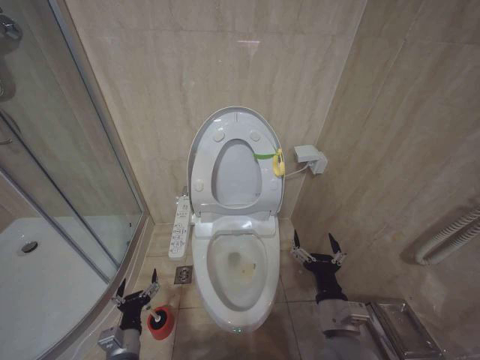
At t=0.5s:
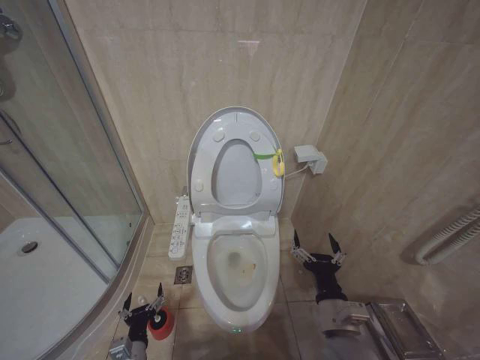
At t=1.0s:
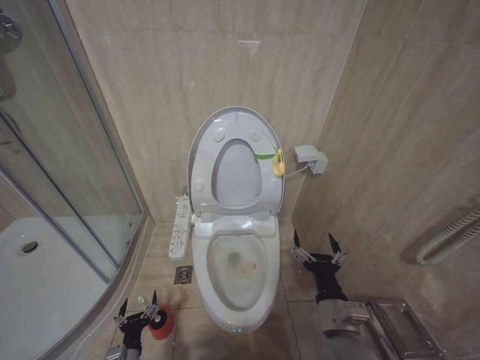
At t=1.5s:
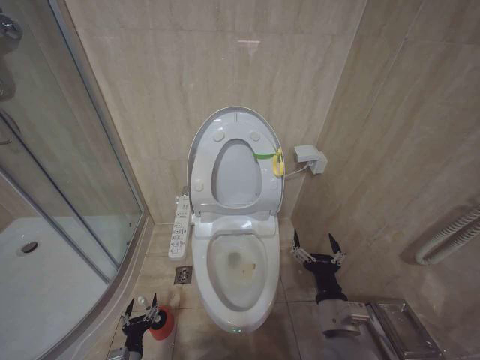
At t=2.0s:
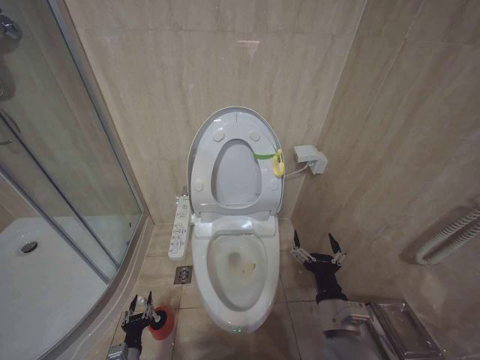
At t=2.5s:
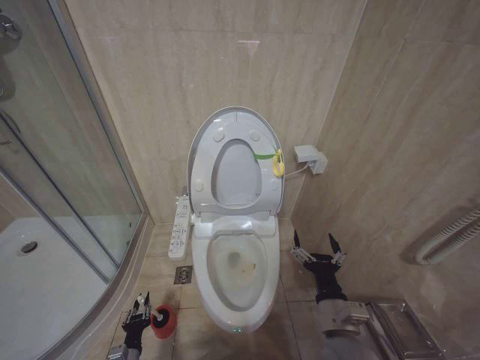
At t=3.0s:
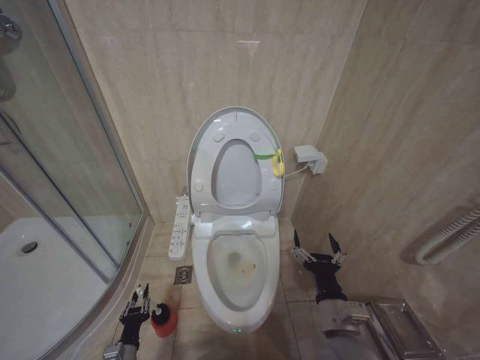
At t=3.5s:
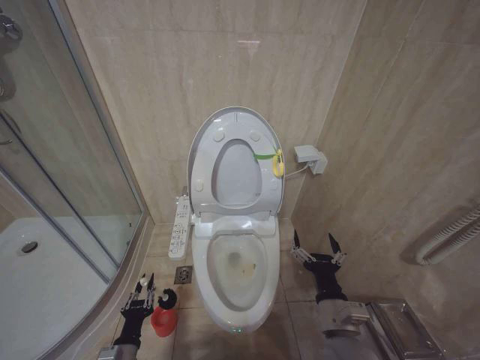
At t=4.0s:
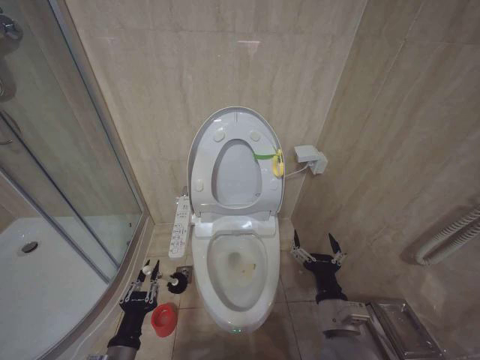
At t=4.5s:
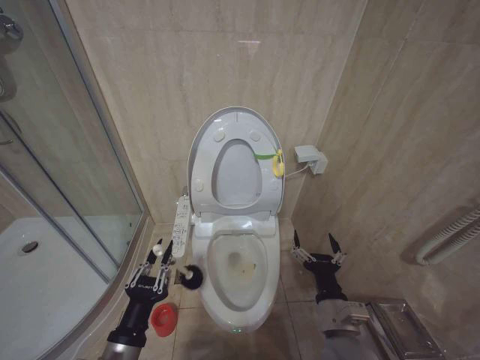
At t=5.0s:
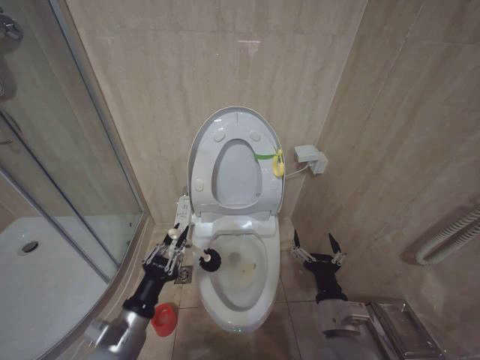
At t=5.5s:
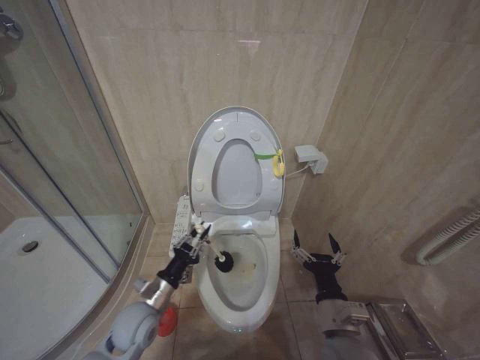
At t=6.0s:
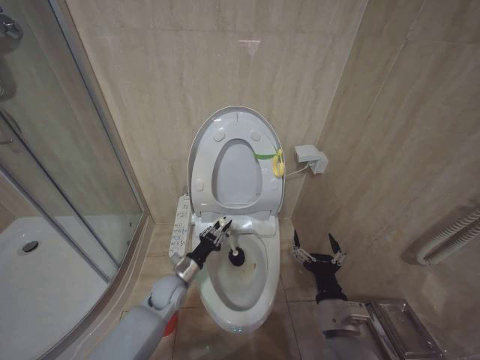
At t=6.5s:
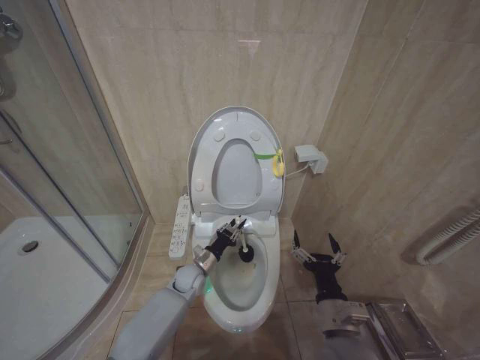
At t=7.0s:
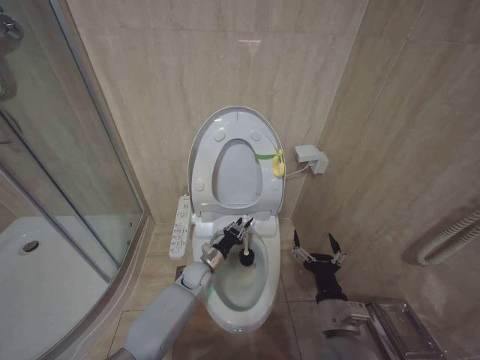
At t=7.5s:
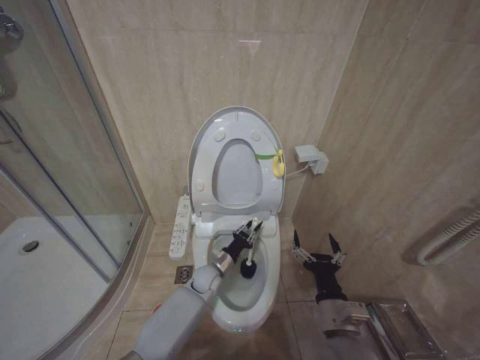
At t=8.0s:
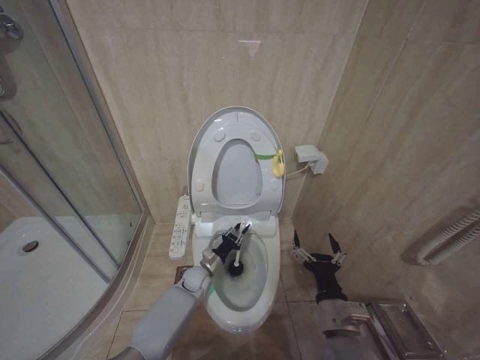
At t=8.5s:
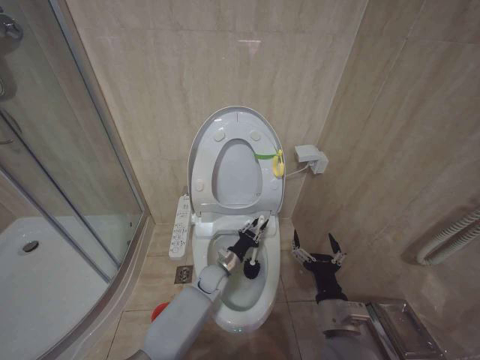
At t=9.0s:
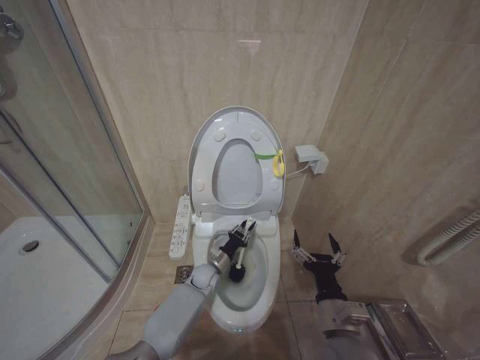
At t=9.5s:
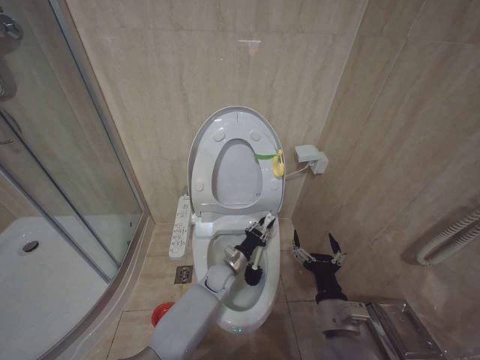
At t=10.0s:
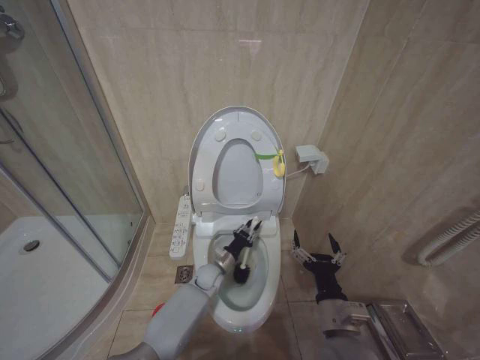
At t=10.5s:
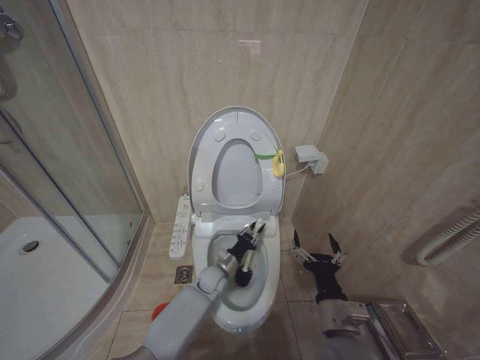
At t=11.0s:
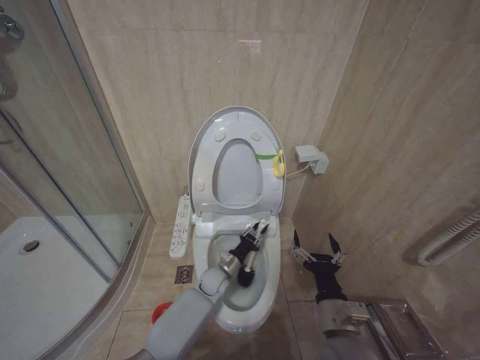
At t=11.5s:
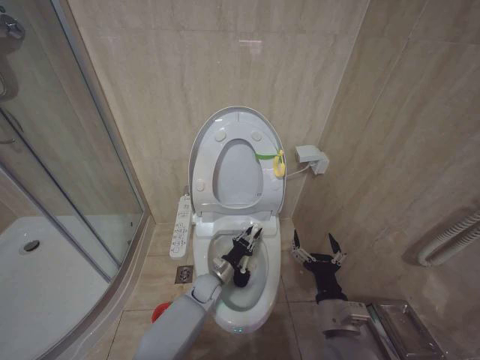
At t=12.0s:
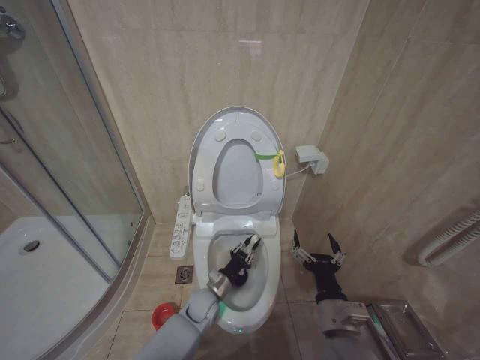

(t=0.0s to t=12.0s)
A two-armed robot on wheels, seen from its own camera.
Task of the whole recording: Open the toilet lid, clean the toilet bowl with a toilet brush, close the toilet lid, and flush.
t=0.0s - t=2.0s: The left gripper is displaced downward by some 15 cm, and closes its fingers.
t=2.0s - t=4.0s: The left gripper moves upward, approximately 20 cm.
t=4.0s - t=6.0s: The left gripper travels forward by approximately 20 cm.
t=6.0s - t=8.0s: The left gripper moves to the right, downward and forward, roughly 10 cm.
t=10.0s - t=12.0s: The left gripper goes roughly 5 cm backward.

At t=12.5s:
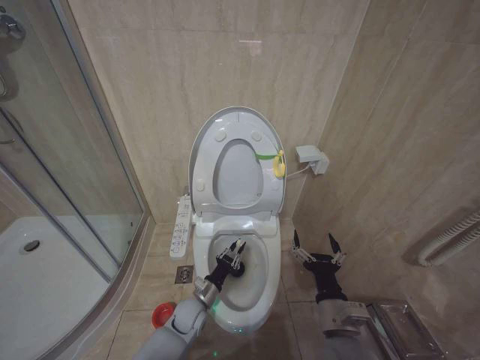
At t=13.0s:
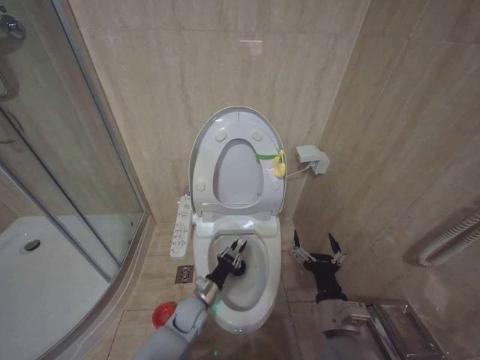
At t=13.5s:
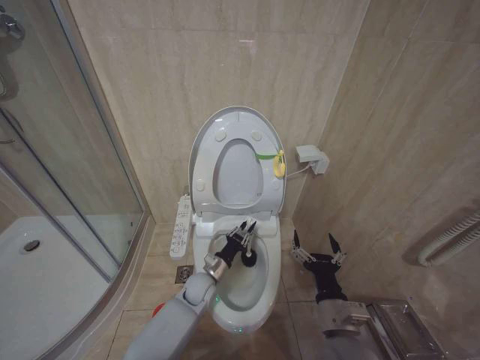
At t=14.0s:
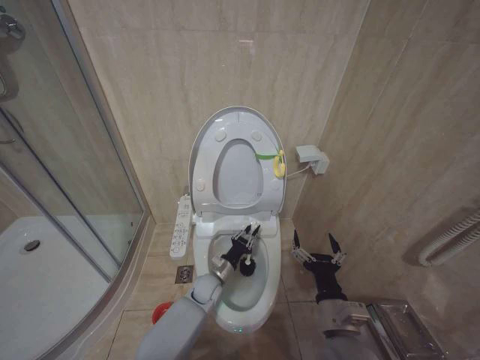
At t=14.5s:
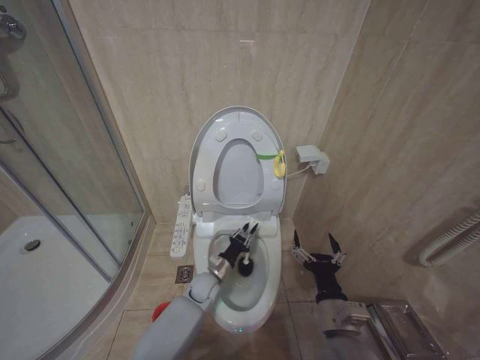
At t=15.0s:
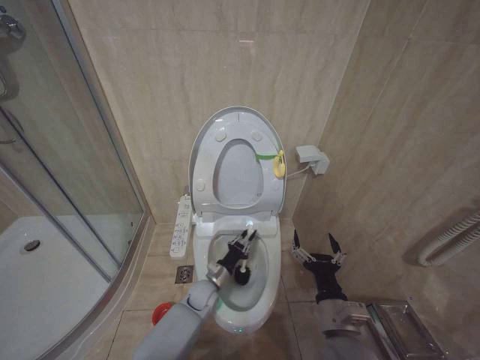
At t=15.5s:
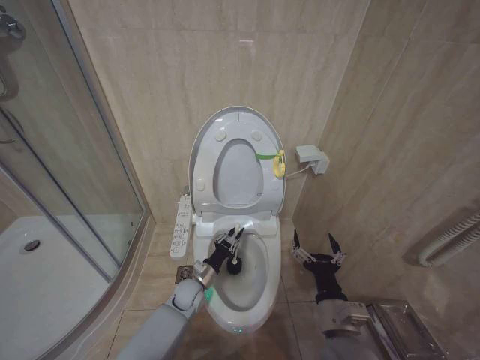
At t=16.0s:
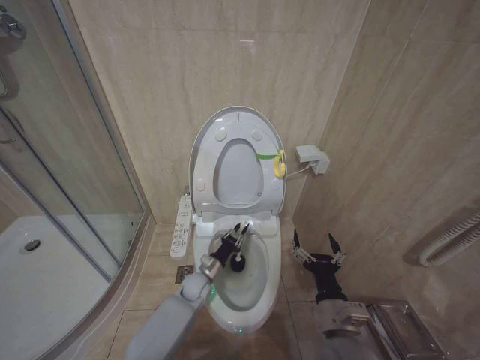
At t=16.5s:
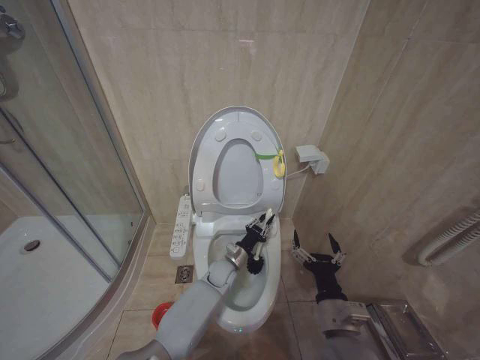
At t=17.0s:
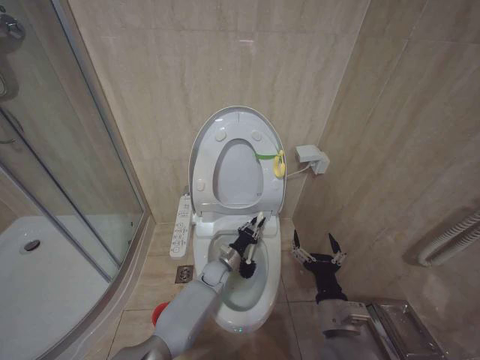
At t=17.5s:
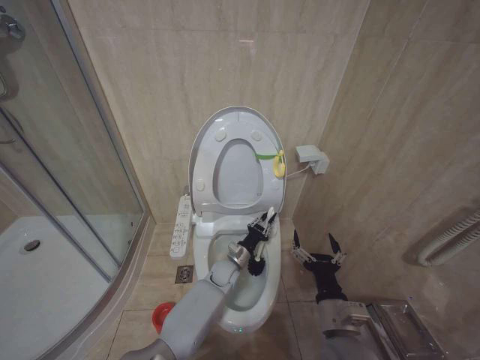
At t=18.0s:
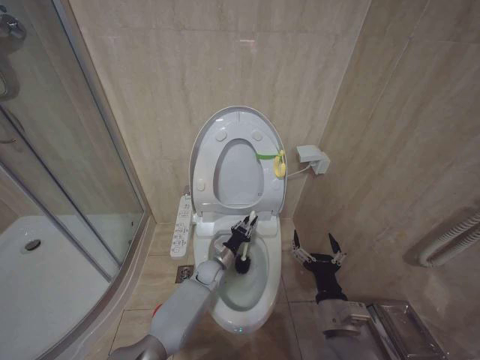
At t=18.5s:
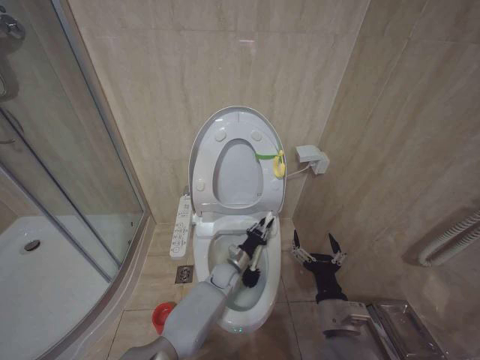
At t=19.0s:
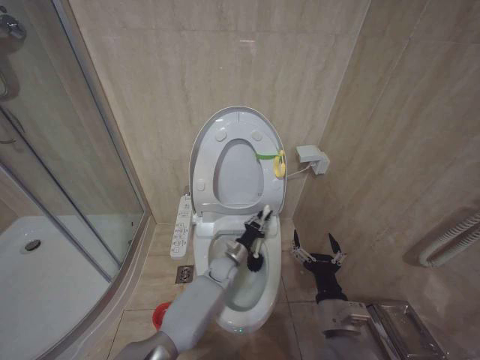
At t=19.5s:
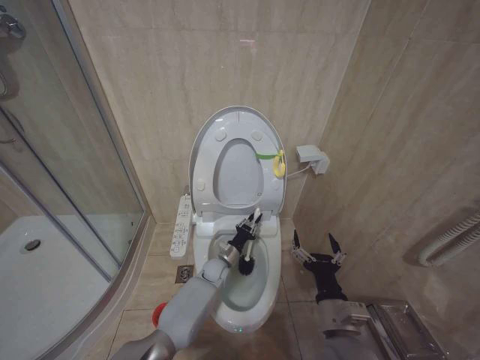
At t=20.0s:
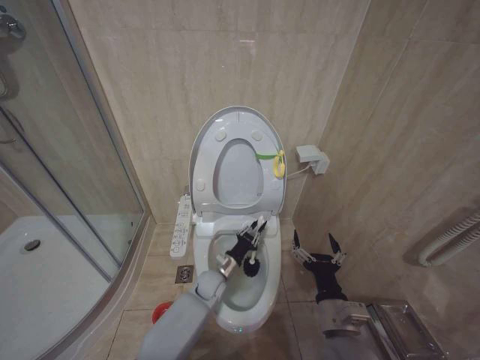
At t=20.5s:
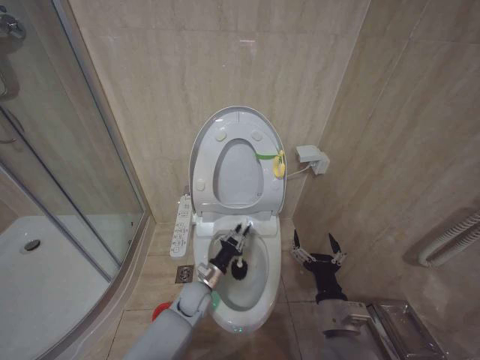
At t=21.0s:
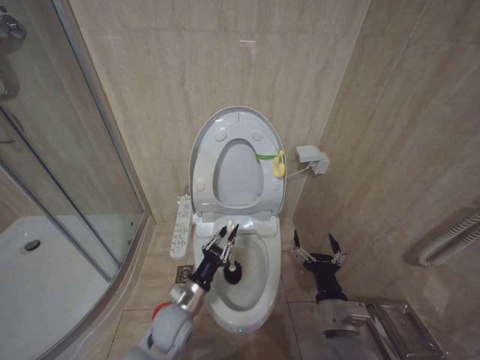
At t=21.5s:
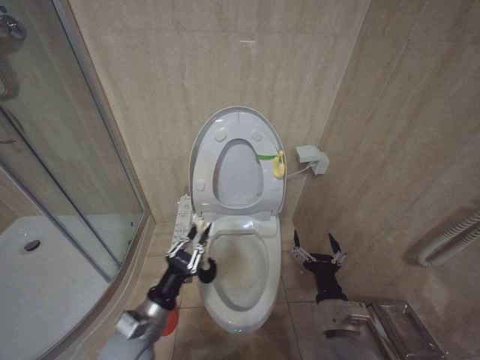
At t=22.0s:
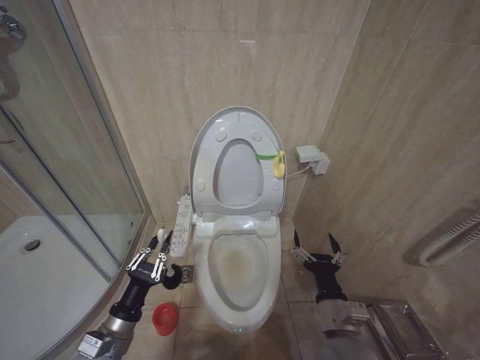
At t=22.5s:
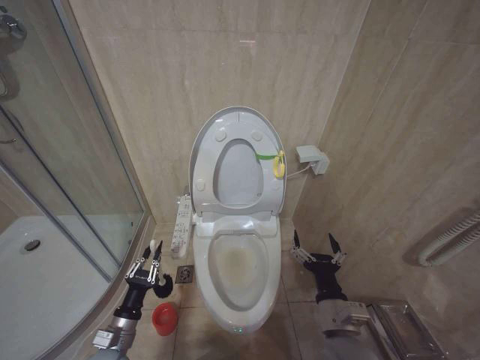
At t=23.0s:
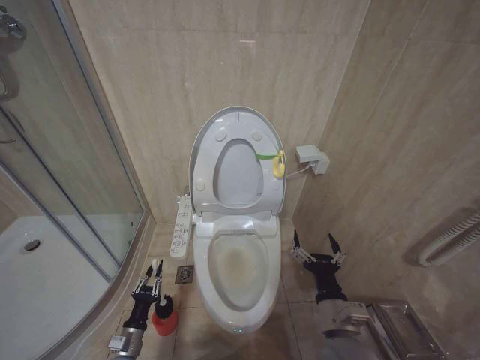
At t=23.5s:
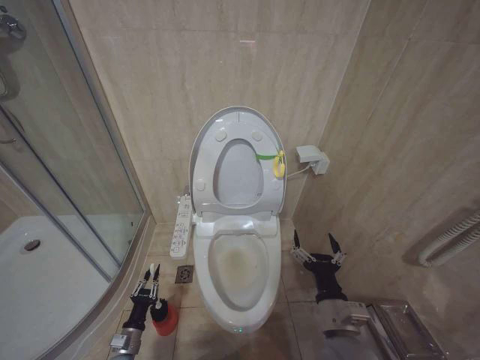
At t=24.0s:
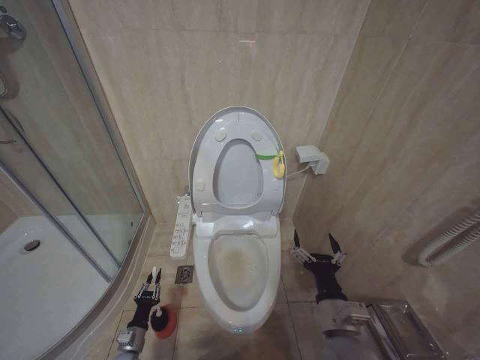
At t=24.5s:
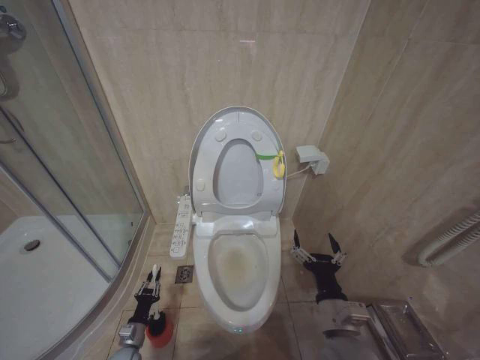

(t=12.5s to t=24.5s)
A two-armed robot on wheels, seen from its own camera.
Task of the whole recording: Open the toilet lid, clean the toilet bowl with a toilet brush, close the toilet lid, and flush.
t=12.5s - t=14.5s: The left gripper is displaced forward by about 5 cm.
t=14.5s - t=16.5s: The left gripper travels to the right by some 5 cm.
t=16.5s - t=18.5s: The grippers make only small movements.
t=18.5s - t=20.5s: The left gripper heads to the left and backward, covering some 10 cm.
t=20.5s - t=22.5s: The left gripper goes roughly 25 cm to the left and backward.
t=22.5s - t=24.5s: The left gripper shifts some 20 cm downward.

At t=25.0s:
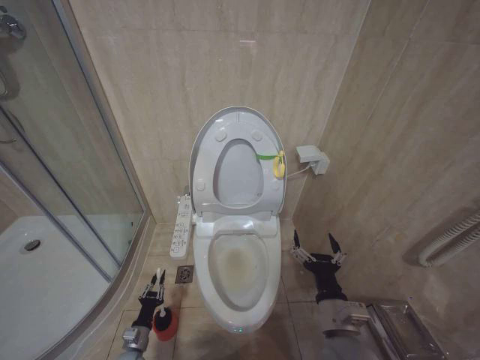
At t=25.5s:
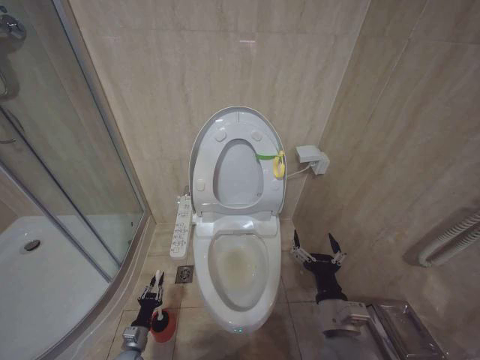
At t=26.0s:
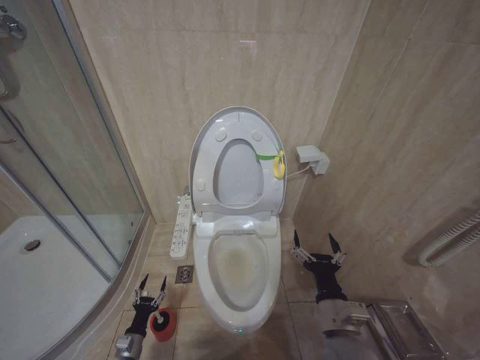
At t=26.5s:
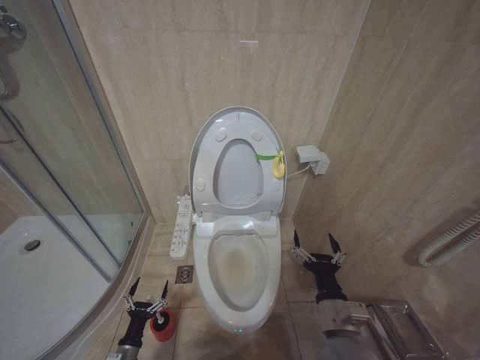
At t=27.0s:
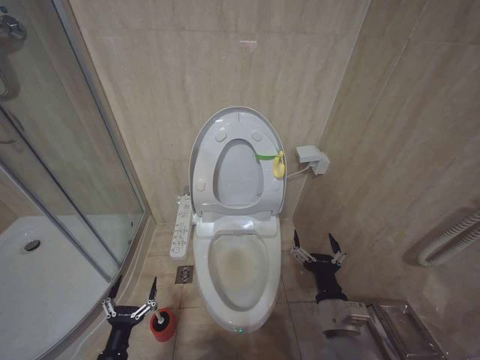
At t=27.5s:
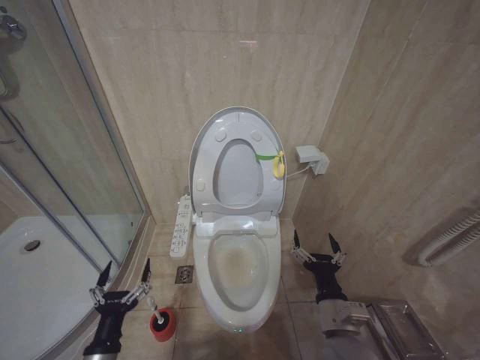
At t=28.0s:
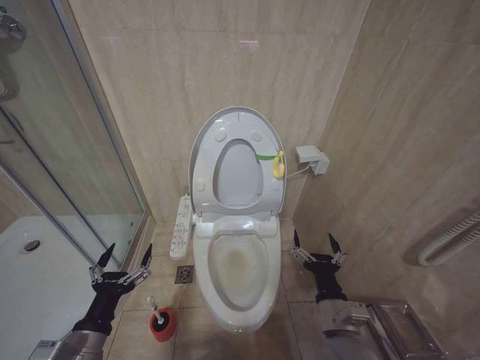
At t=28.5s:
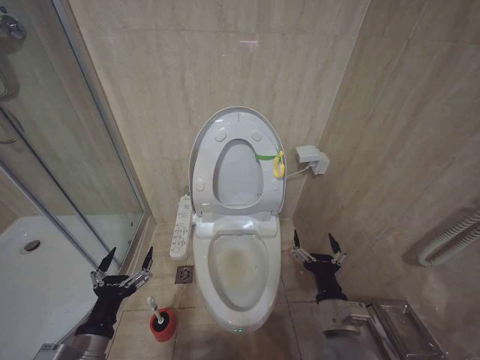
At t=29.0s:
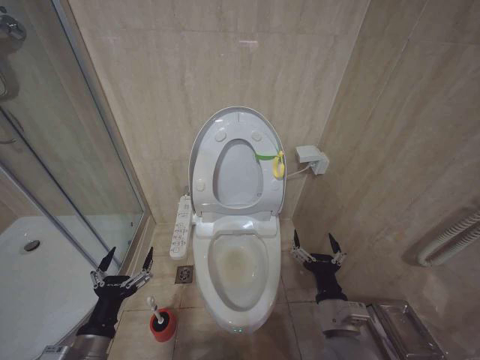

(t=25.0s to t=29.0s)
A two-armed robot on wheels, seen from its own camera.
Task of the whole recording: Open the toilet lid, clean the toilet bowl with a toilet brush, close the toilet lid, and flush.
t=25.0s - t=27.0s: The left gripper heads upward and backward, covering roughly 15 cm, and opens its fingers.
t=27.0s - t=29.0s: The left gripper heads upward, covering about 20 cm.
